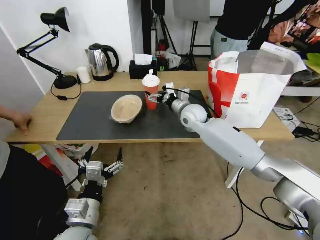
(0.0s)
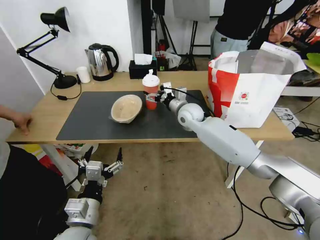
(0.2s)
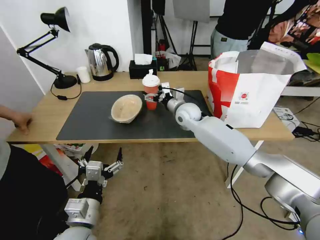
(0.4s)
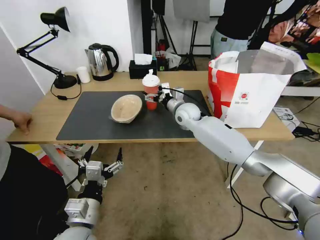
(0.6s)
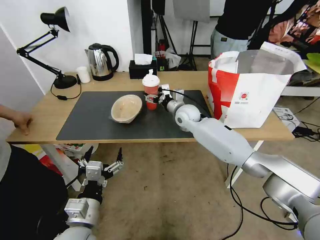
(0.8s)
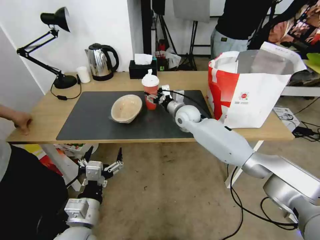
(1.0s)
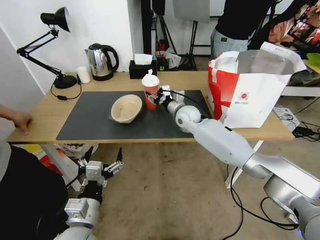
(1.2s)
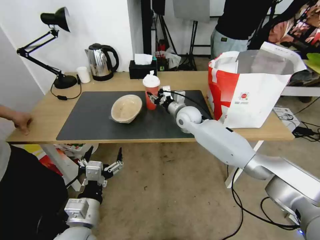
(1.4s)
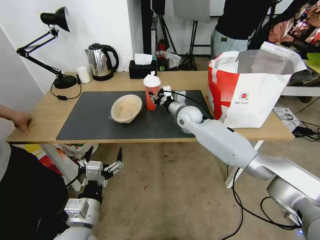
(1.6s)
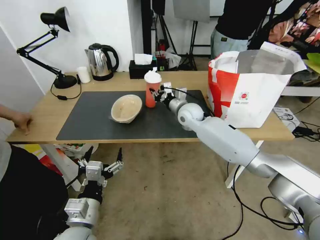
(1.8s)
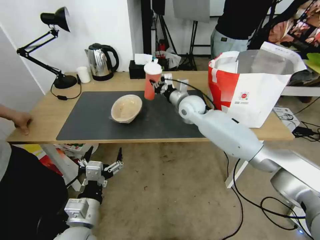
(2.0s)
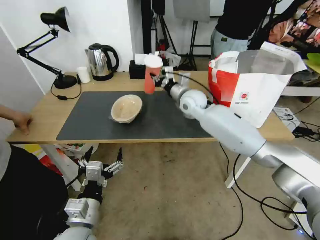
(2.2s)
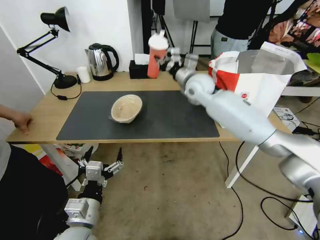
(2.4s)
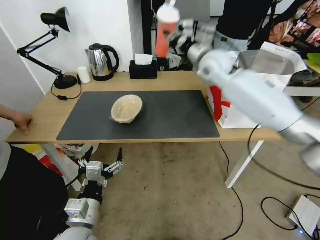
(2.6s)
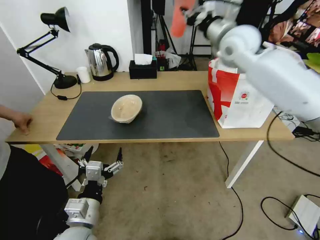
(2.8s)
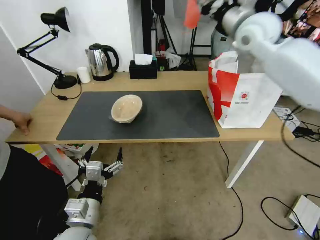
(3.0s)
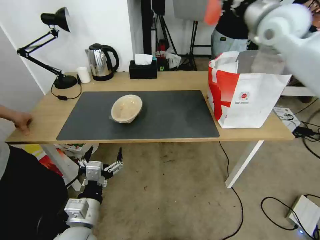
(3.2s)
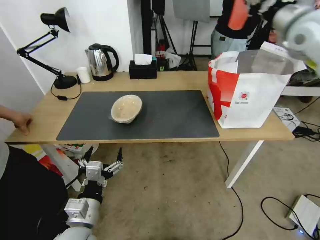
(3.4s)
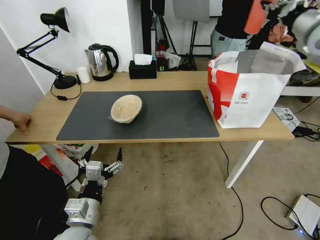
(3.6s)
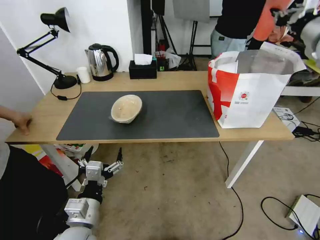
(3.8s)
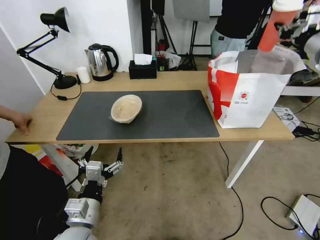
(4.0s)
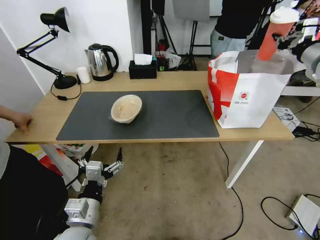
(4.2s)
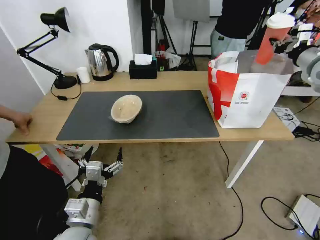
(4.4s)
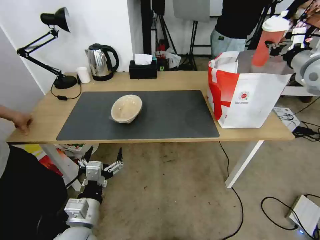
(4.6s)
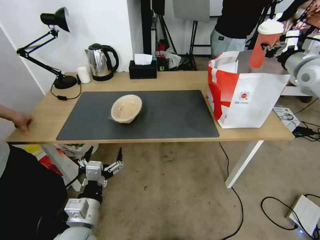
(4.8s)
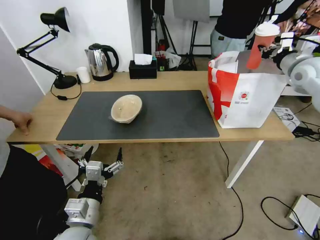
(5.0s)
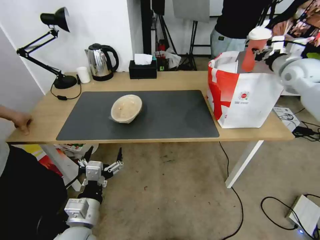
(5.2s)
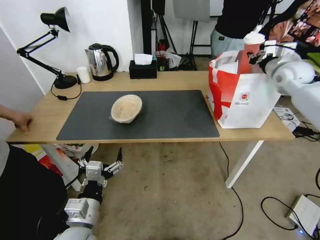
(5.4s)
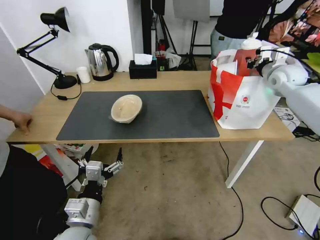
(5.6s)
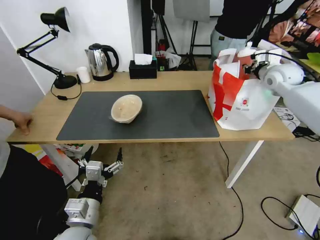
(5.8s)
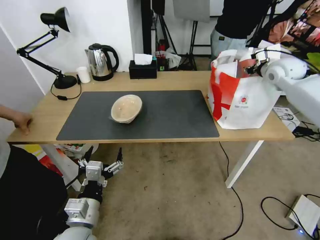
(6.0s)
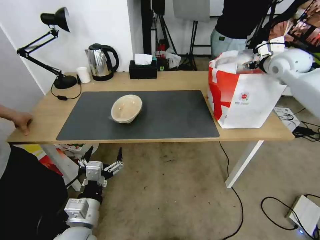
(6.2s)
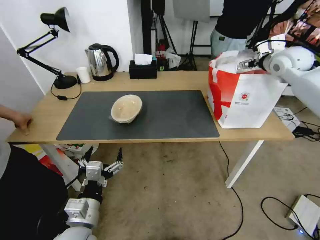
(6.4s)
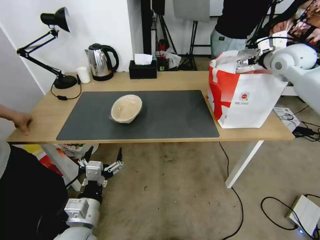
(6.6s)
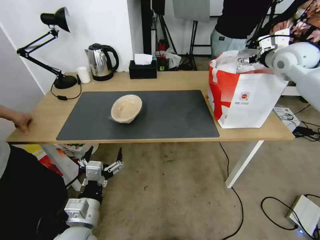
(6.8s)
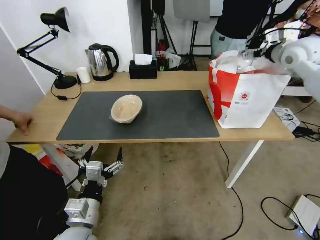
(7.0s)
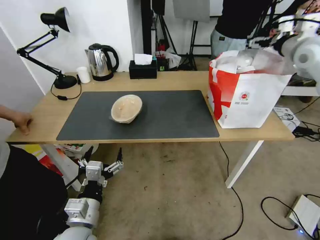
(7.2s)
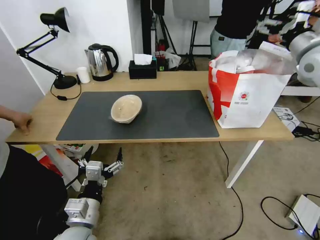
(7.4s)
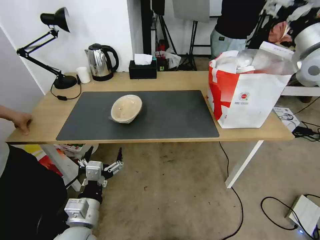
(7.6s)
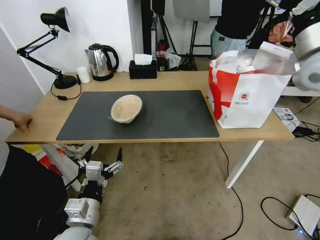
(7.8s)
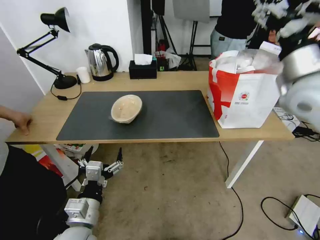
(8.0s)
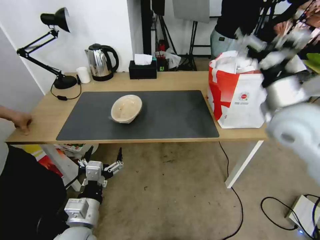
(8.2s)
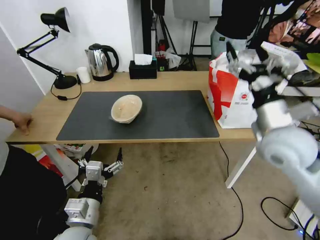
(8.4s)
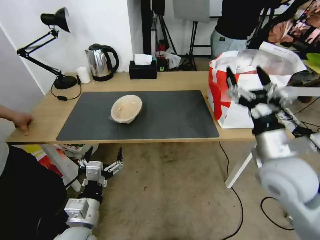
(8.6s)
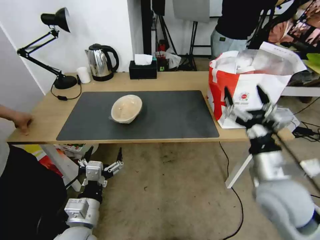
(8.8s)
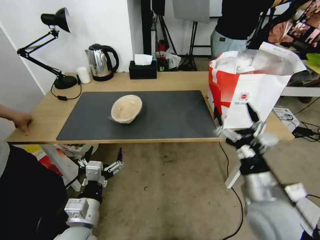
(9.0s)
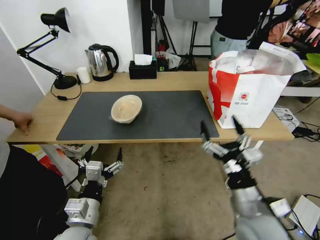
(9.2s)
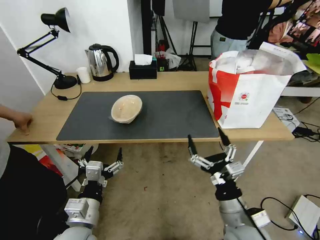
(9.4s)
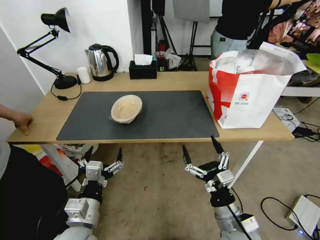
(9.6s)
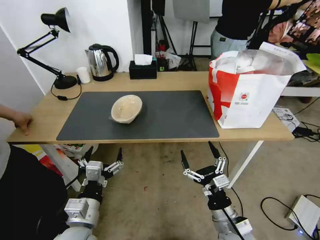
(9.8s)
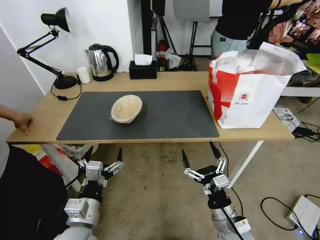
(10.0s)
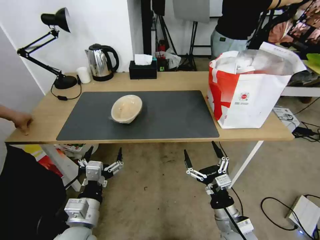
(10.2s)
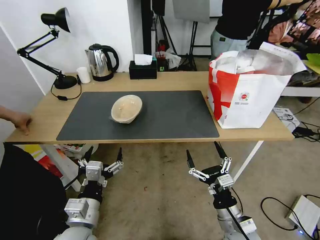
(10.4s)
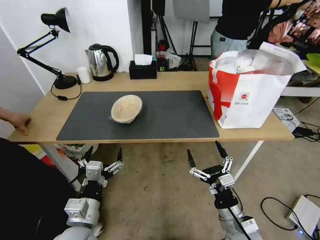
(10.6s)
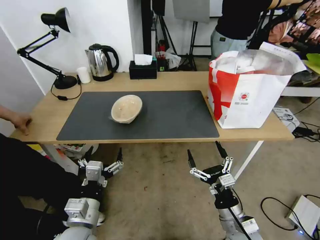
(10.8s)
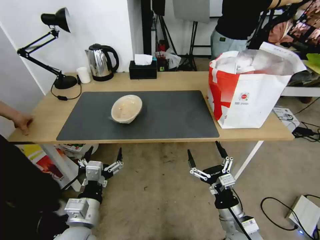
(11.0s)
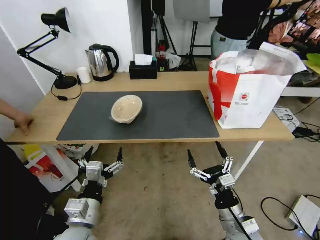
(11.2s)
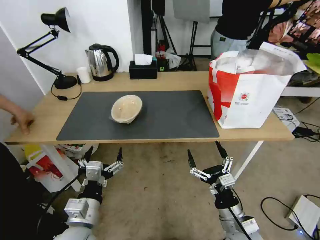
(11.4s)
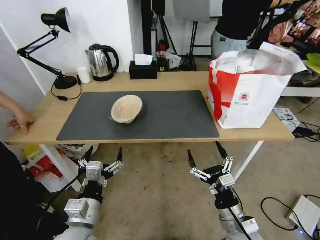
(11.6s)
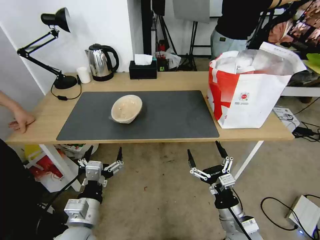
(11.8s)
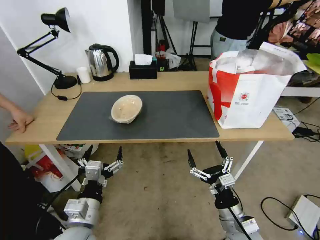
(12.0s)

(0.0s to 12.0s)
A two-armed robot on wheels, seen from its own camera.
Task of the whole recording: Pick up the trash from the table and place it into the takeout bag.
0.0s - 1.6s: The right gripper closes its fingers.
1.6s - 3.0s: The right gripper is displaced upward and to the right by roughly 35 cm.
3.0s - 4.4s: The right gripper moves to the right, approximately 20 cm.
4.4s - 6.0s: The right gripper goes approximately 10 cm forward and to the left, and opens.
6.0s - 7.6s: The right gripper moves backward and upward, roughly 15 cm, and opens.
7.6s - 9.0s: The right gripper travels backward, downward and to the left by some 40 cm.
9.0s - 10.4s: The right gripper travels downward by roughly 15 cm.
10.4s - 12.0s: Both grippers stay put.

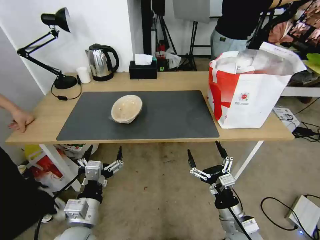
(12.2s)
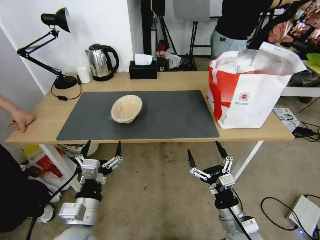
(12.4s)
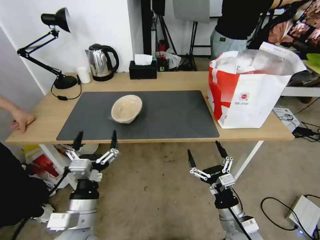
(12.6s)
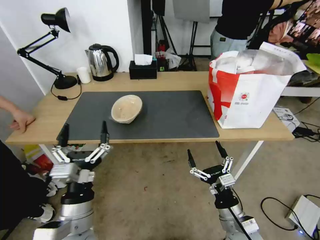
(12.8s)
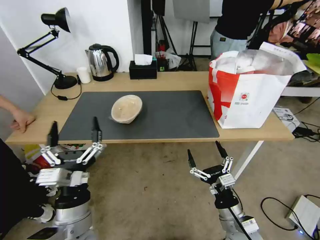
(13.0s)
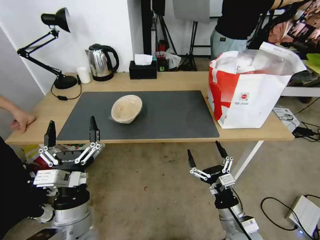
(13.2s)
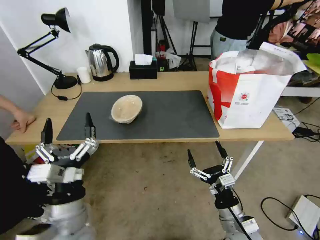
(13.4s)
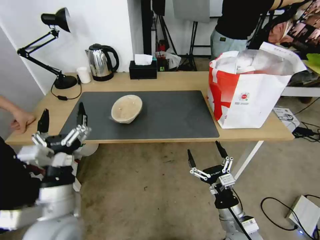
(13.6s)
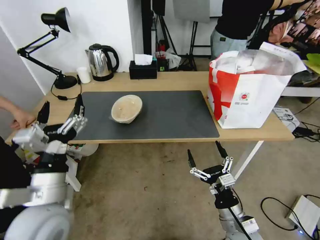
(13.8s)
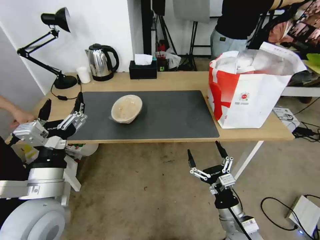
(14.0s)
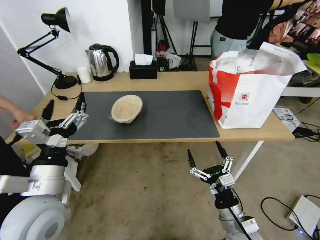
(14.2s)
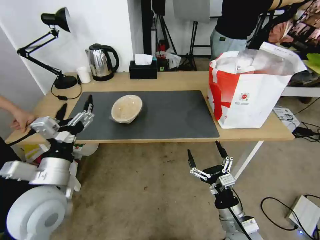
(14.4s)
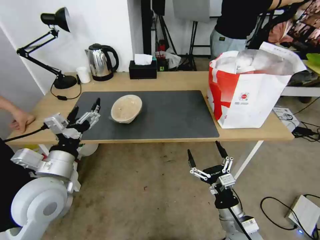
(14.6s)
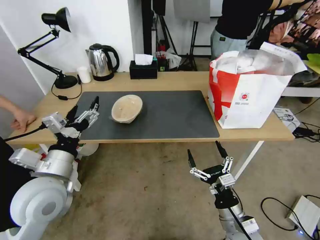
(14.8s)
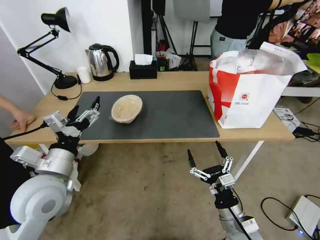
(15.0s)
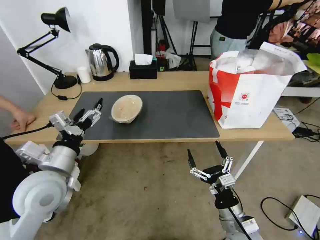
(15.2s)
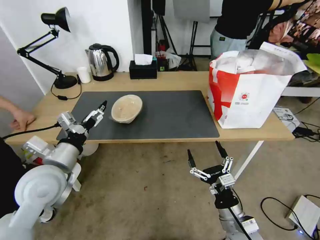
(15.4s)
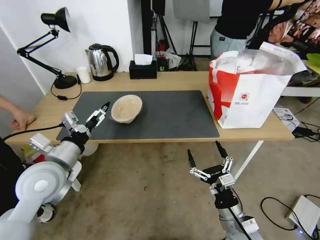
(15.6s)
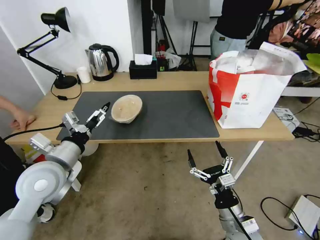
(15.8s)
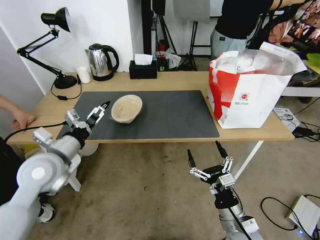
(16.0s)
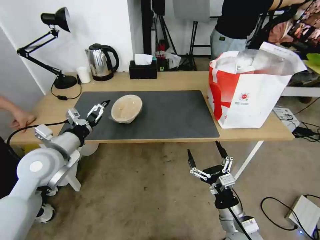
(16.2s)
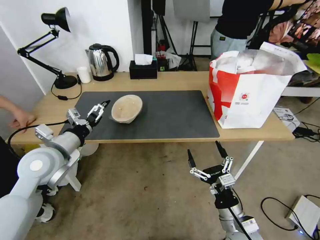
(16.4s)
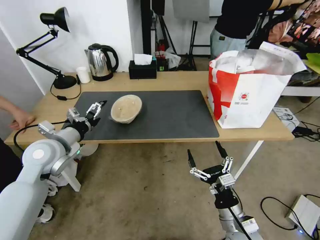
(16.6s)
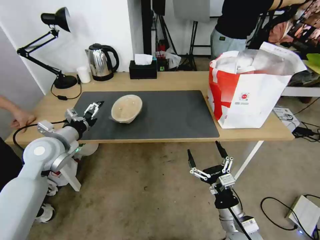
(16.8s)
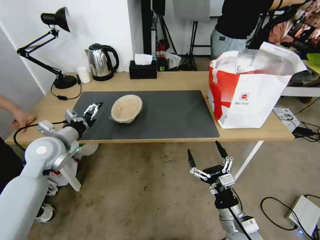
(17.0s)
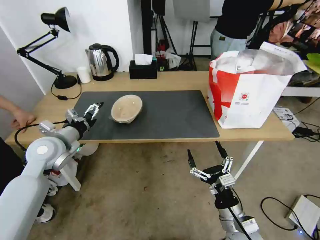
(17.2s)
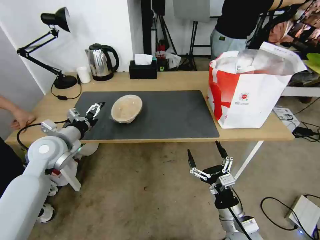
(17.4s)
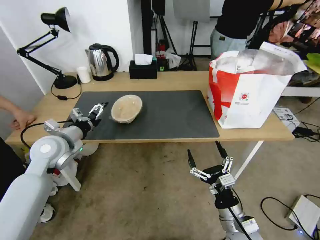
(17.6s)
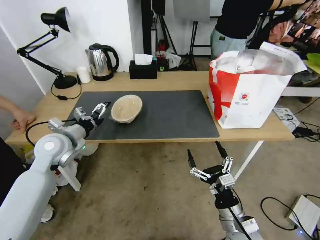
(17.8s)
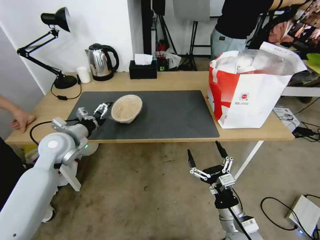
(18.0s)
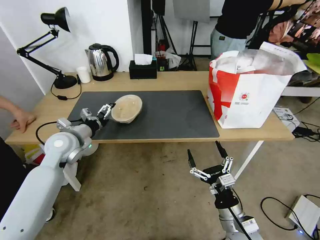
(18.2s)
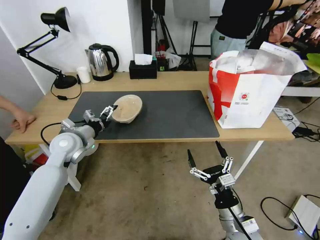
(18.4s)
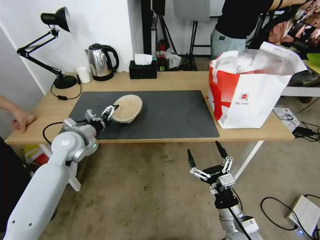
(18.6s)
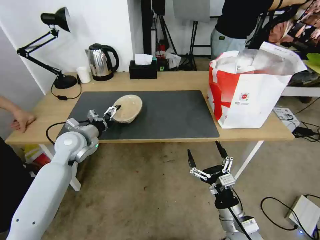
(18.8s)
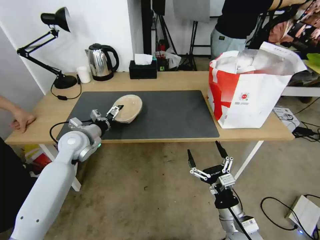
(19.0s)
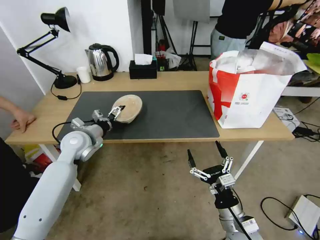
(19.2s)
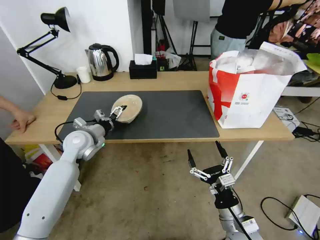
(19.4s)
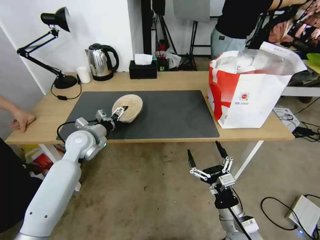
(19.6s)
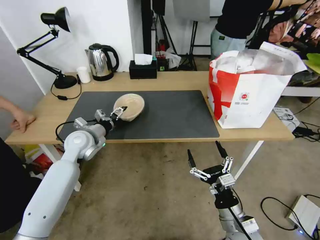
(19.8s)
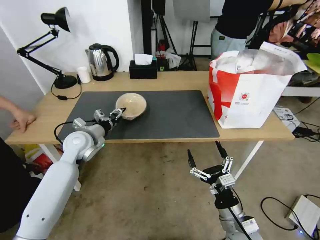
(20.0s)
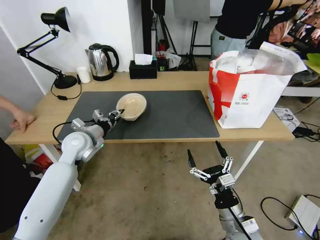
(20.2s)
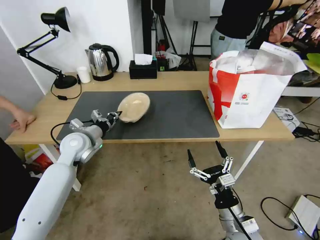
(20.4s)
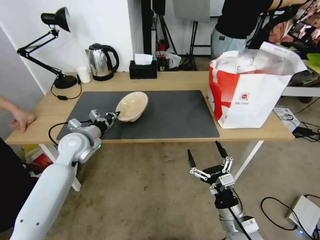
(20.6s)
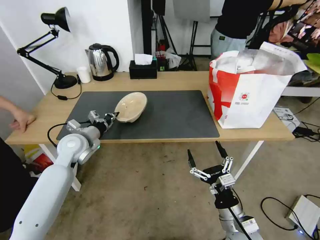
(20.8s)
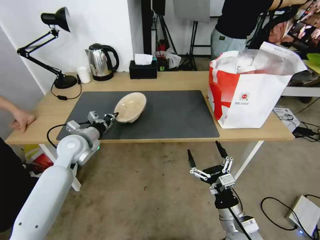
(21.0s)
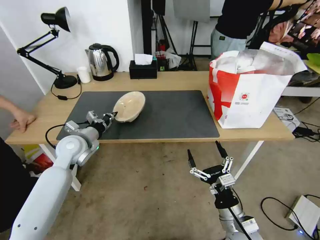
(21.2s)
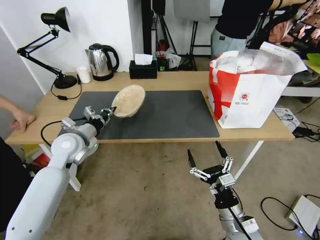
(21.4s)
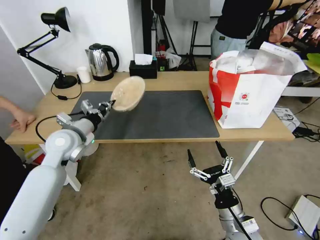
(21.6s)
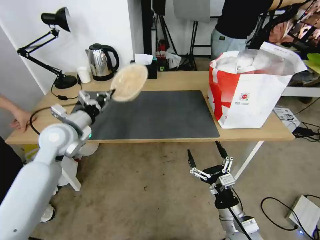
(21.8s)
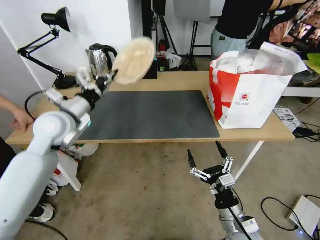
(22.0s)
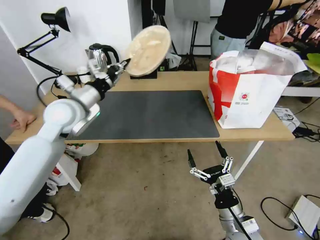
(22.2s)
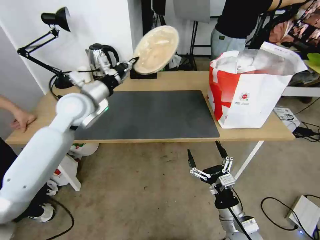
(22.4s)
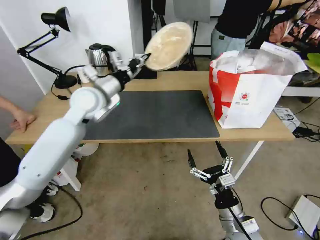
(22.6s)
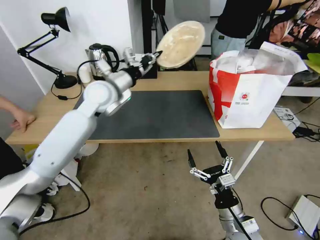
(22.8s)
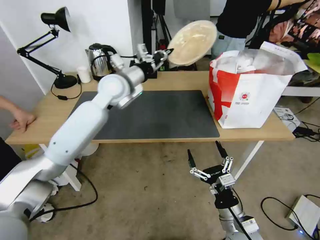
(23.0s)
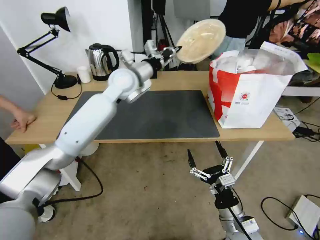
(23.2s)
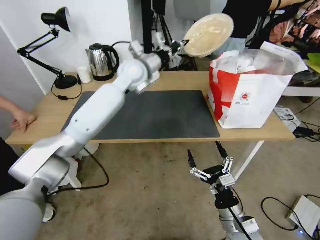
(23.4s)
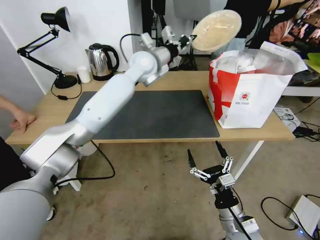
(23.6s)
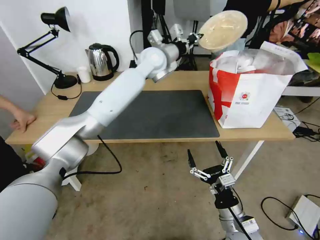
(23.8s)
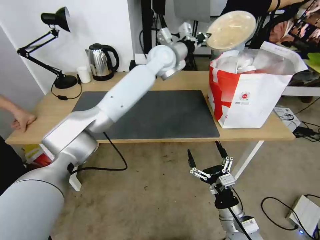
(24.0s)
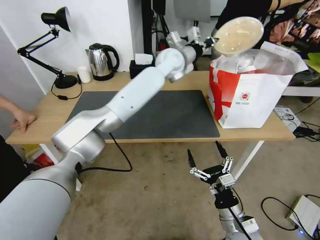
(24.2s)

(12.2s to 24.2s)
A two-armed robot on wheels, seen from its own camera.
Task of the whole recording: Pick up the trash from the table and place it into the takeout bag.
12.2s - 13.8s: The left gripper travels upward by approximately 10 cm.
13.8s - 15.2s: The left gripper is displaced forward by some 5 cm.
15.2s - 16.6s: The left gripper is displaced forward and to the left by approximately 10 cm.
16.6s - 18.2s: The left gripper shifts approximately 5 cm forward.
18.2s - 19.8s: The left gripper moves some 5 cm.
19.8s - 21.2s: The left gripper closes its fingers.
21.2s - 22.6s: The left gripper travels upward and to the right by approximately 20 cm.
22.6s - 24.2s: The left gripper shifts about 30 cm to the right and forward.
